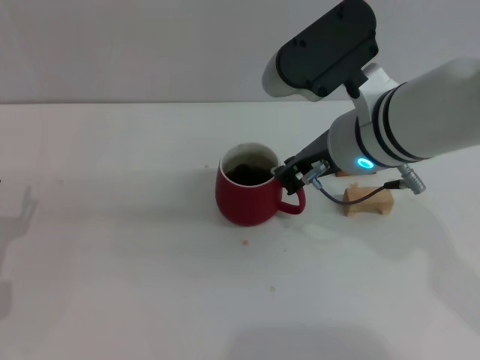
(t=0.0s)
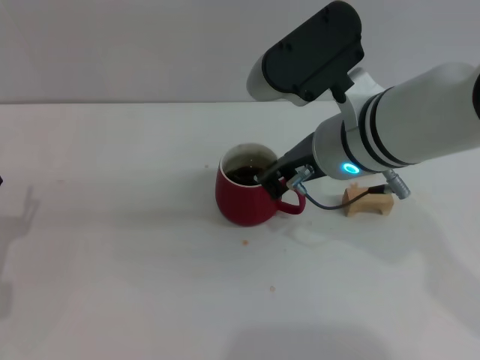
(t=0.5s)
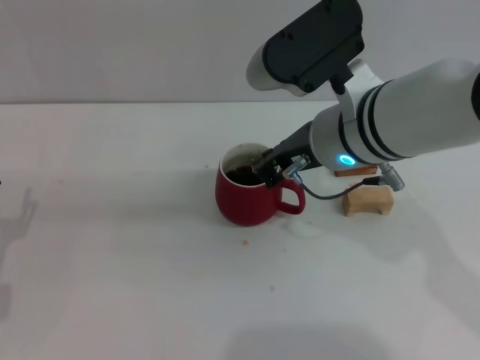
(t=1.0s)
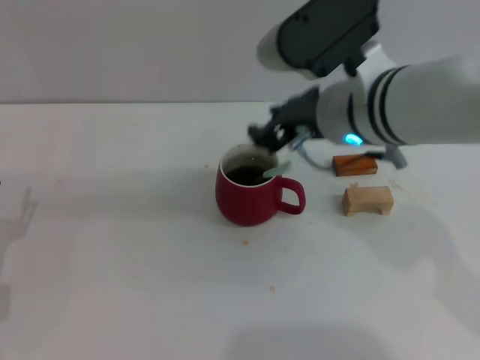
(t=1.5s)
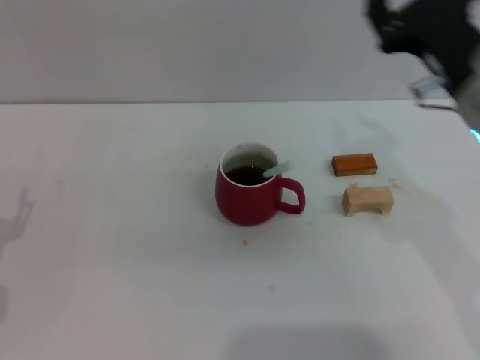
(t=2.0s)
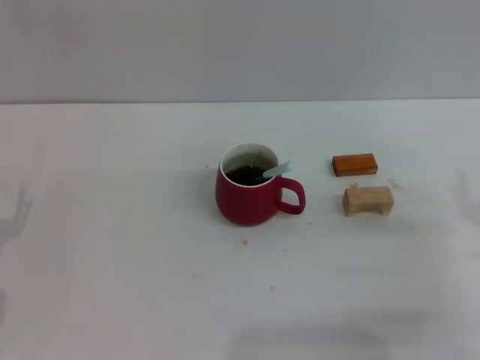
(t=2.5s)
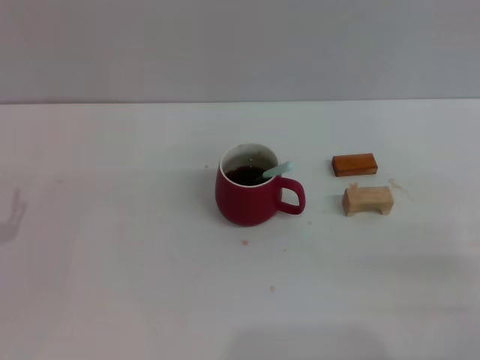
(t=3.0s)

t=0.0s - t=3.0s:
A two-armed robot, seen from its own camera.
Task of the whole recording: Move the red cup to the center, lift the blue spoon, stir it three times in the cup, and put the spoon into the cup.
t=0.0s - t=1.5s: The grippers move only a little.
t=1.5s - t=3.0s: The right gripper shifts approximately 30 cm to the right, backward and downward, and opens its fingers.

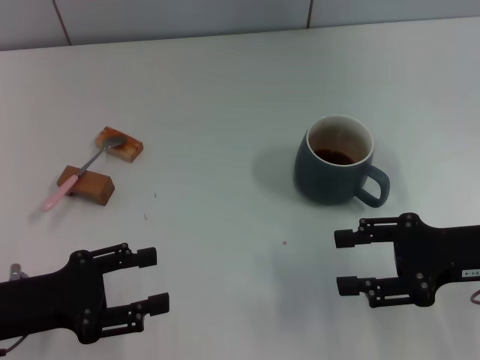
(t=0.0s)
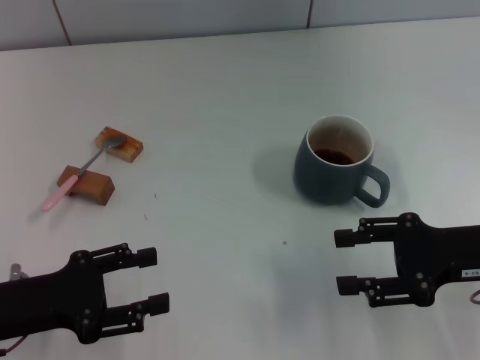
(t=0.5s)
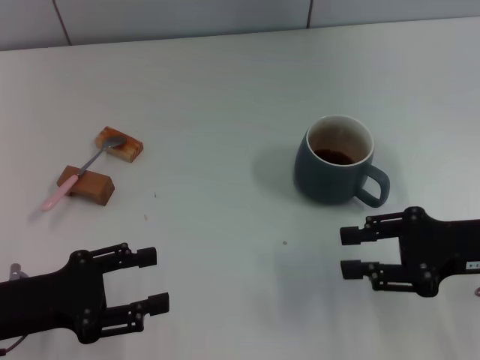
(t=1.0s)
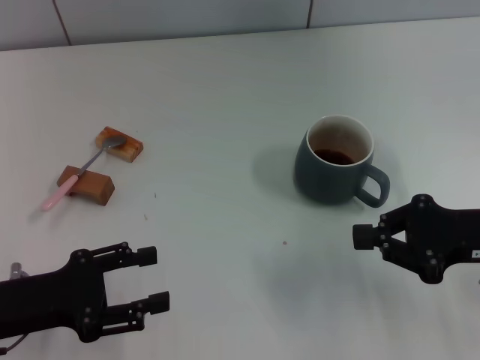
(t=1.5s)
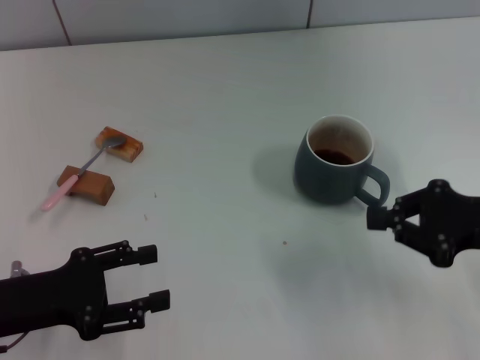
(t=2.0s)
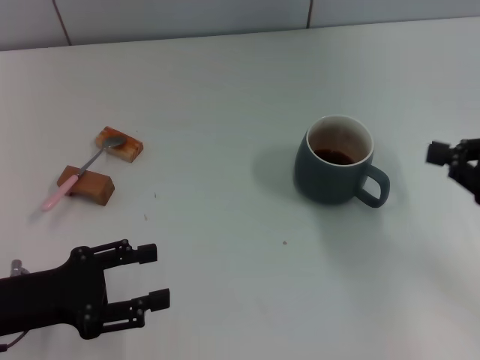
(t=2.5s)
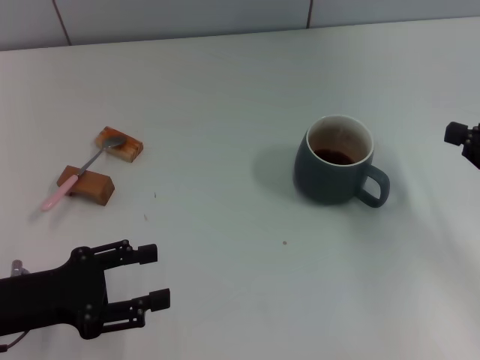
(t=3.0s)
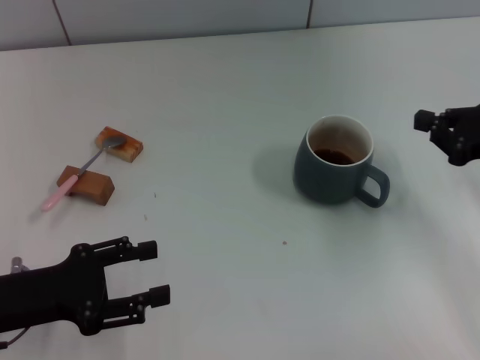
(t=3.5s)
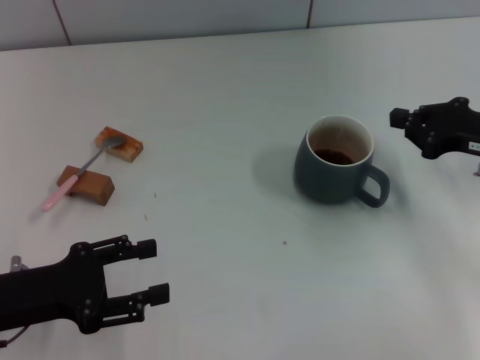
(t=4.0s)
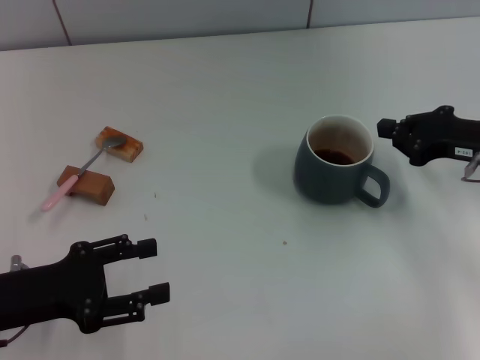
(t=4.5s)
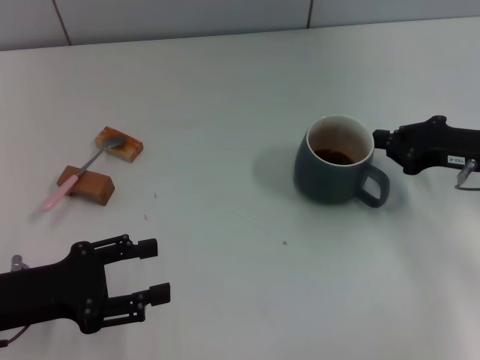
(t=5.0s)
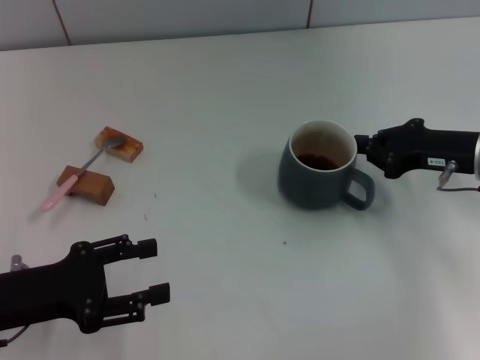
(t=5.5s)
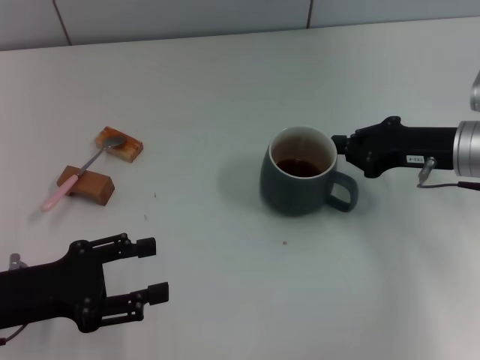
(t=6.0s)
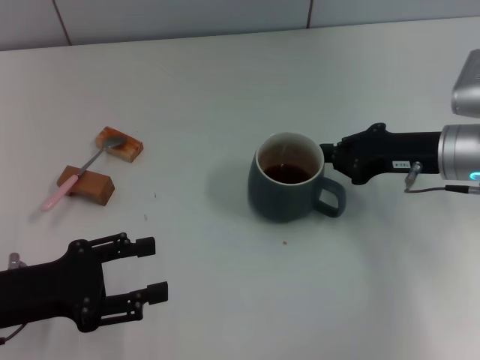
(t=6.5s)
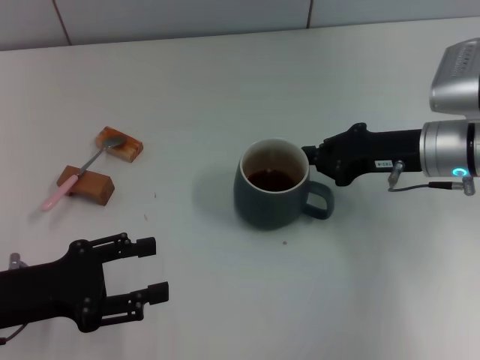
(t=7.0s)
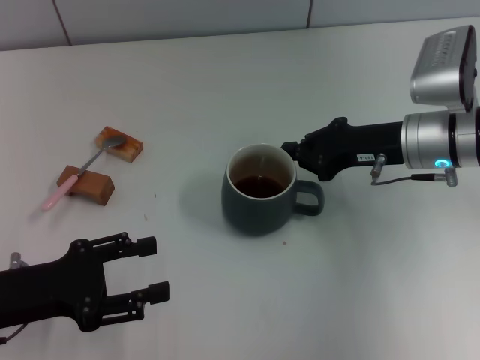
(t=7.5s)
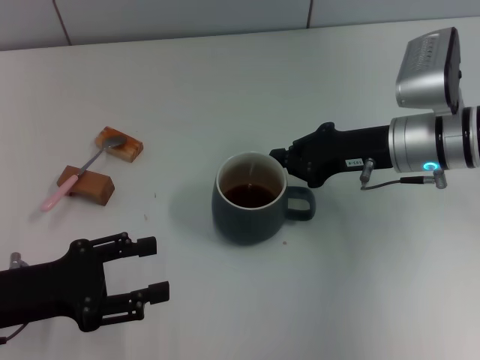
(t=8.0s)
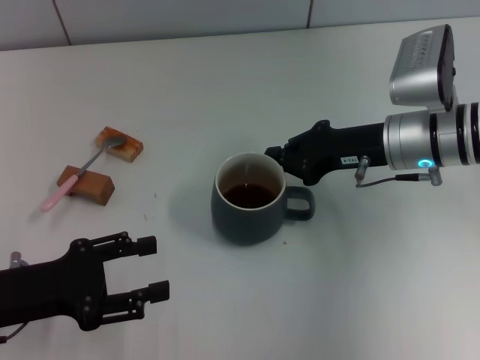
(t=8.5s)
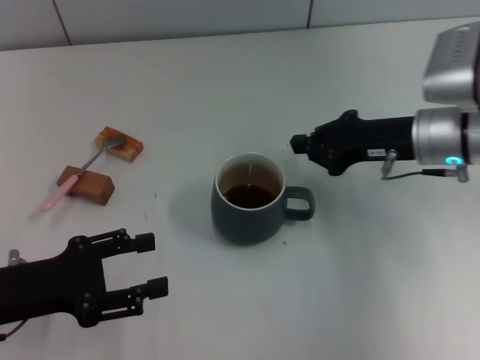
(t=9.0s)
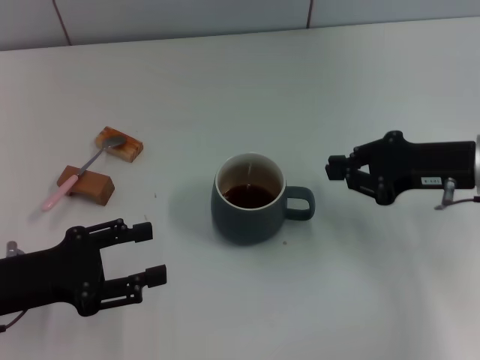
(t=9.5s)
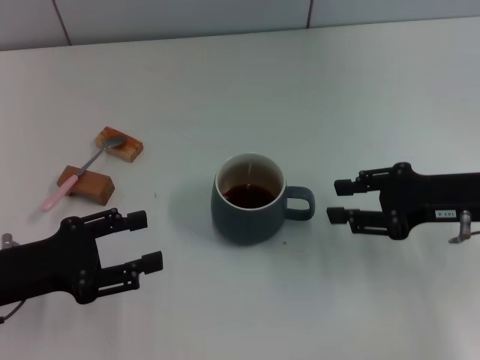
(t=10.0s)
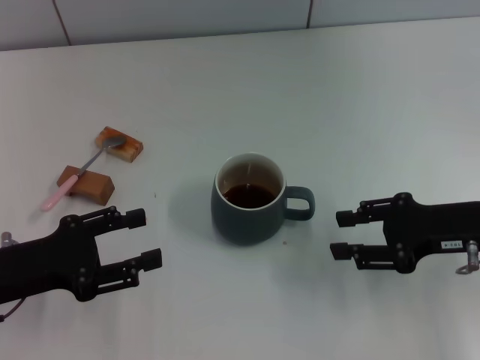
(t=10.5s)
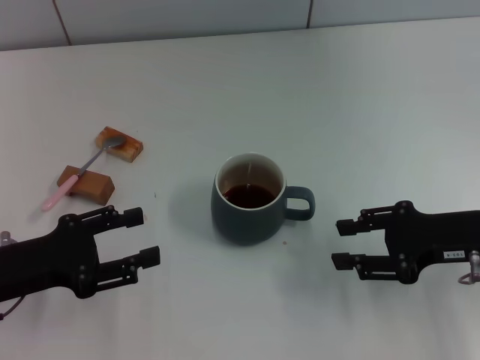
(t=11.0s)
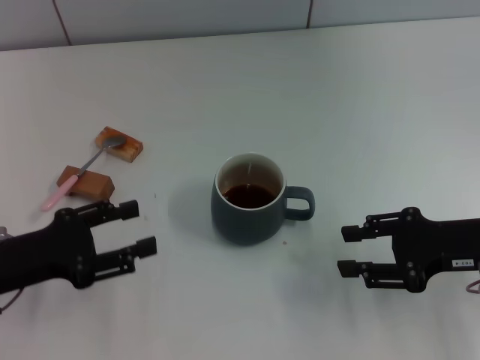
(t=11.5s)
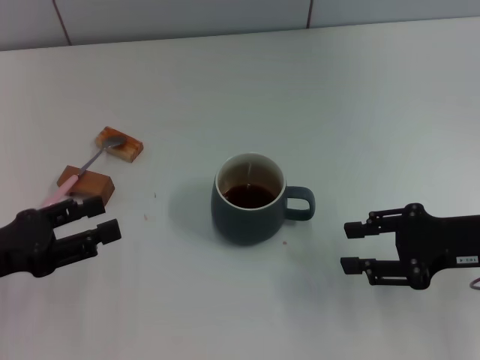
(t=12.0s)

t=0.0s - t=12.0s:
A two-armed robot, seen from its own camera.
Task of the whole recording: Move the grey cup to the center, lift the pink spoon, stir it three times in the cup, and put the spoon into the cup.
Step, t=0.0s - t=9.0s: Move the cup with coffee to the center of view with the right gripper.
t=0.0s - t=2.0s: The right gripper closes.
t=2.0s - t=4.0s: The right gripper shifts about 5 cm forward.
t=4.0s - t=6.0s: The right gripper moves to the left, roughly 5 cm.
t=6.0s - t=8.0s: The right gripper travels to the left by approximately 5 cm.
t=8.0s - t=10.0s: The right gripper heads to the right and backward, covering roughly 10 cm, and opens its fingers.
t=10.0s - t=12.0s: There are only small adjustments of the grippers.

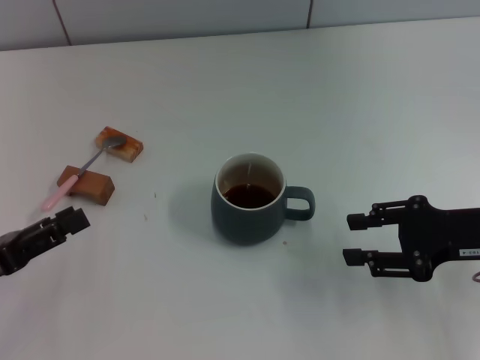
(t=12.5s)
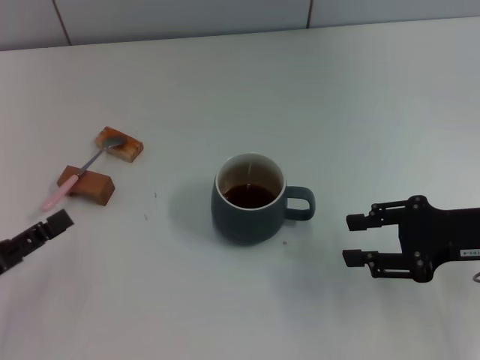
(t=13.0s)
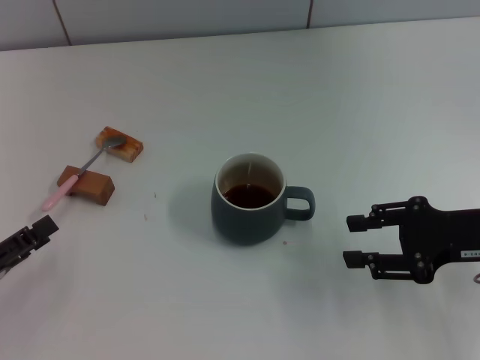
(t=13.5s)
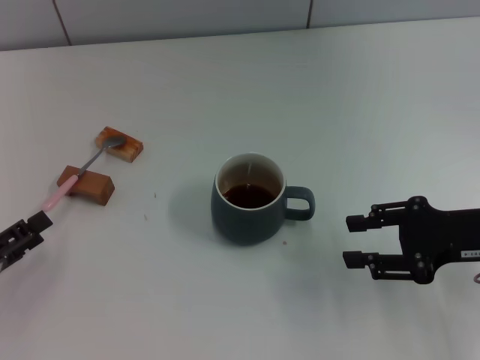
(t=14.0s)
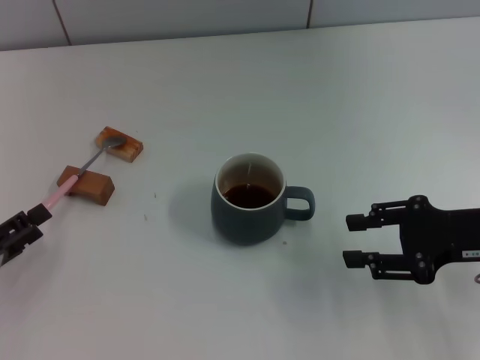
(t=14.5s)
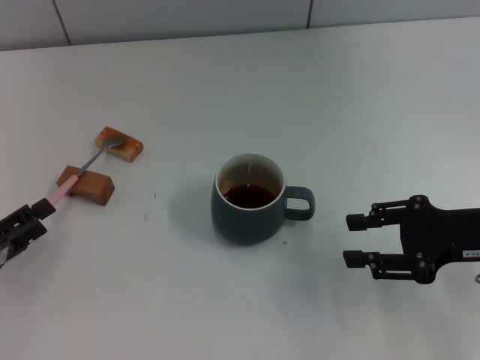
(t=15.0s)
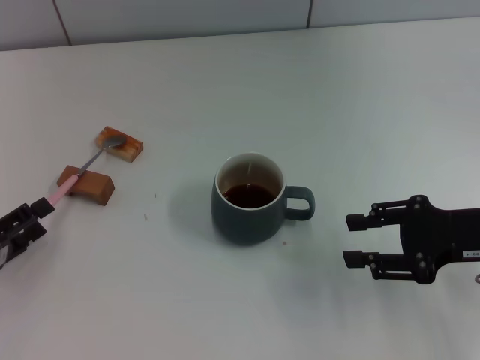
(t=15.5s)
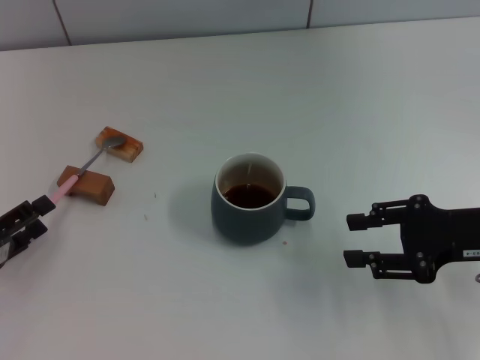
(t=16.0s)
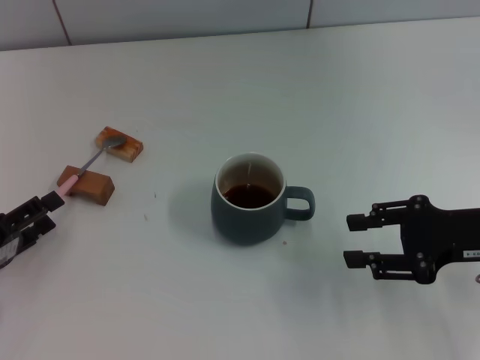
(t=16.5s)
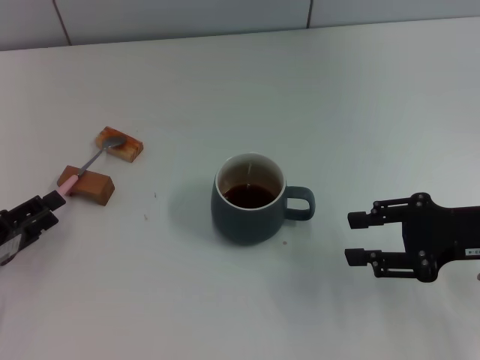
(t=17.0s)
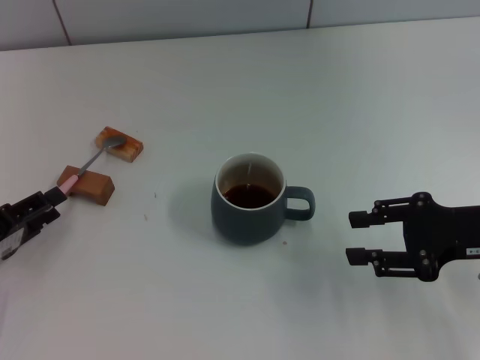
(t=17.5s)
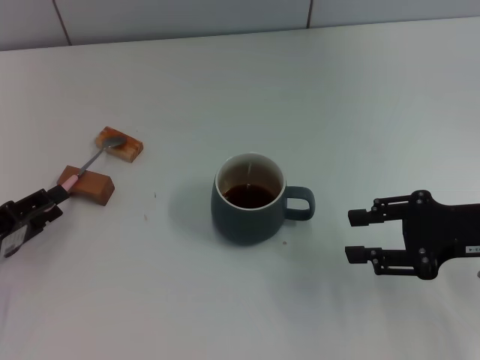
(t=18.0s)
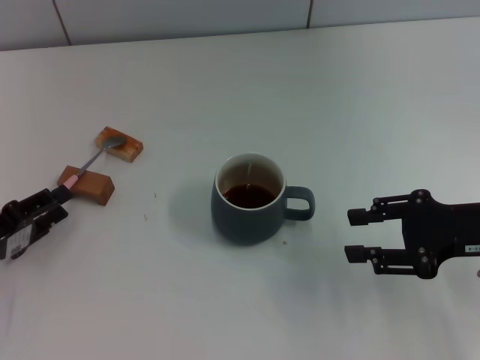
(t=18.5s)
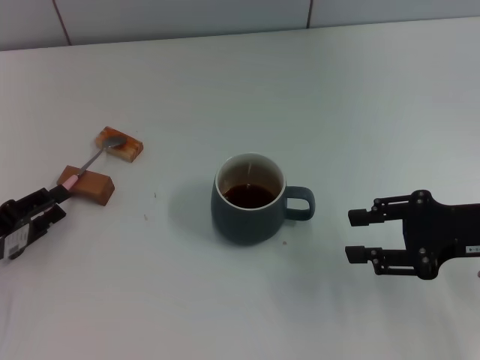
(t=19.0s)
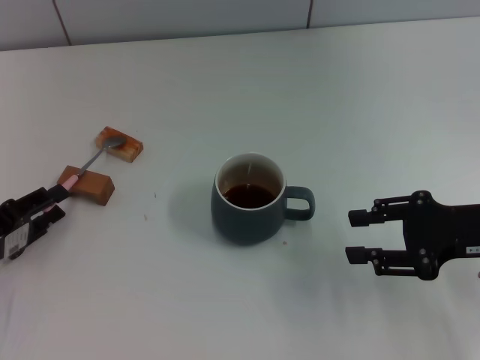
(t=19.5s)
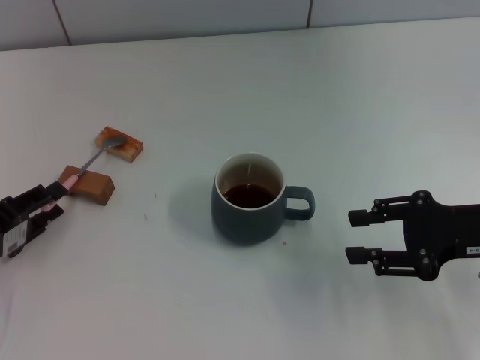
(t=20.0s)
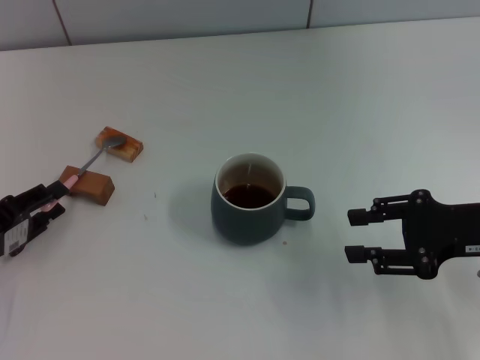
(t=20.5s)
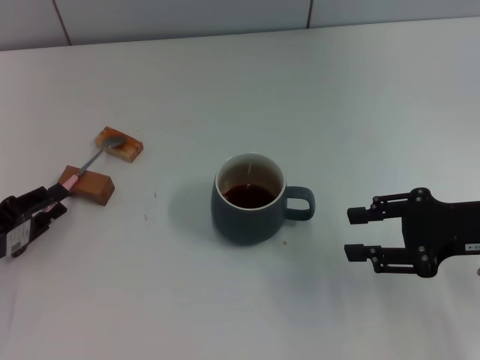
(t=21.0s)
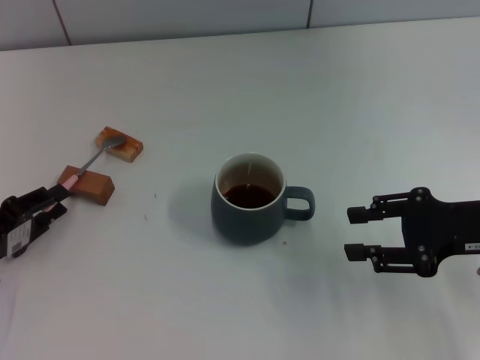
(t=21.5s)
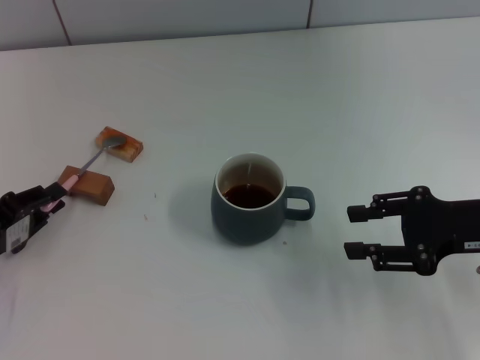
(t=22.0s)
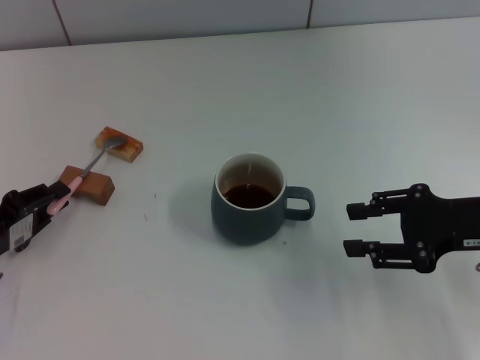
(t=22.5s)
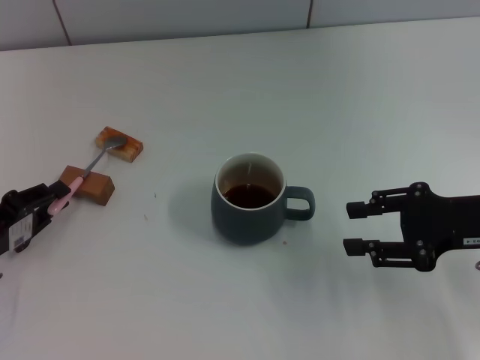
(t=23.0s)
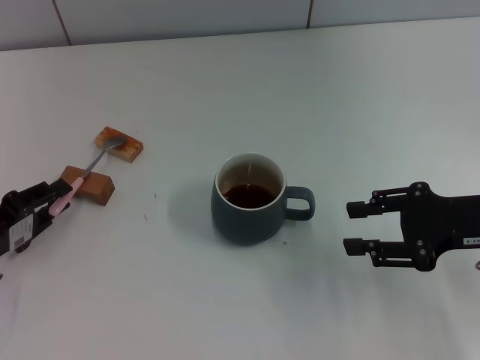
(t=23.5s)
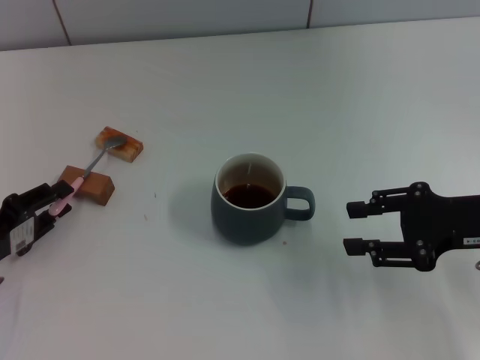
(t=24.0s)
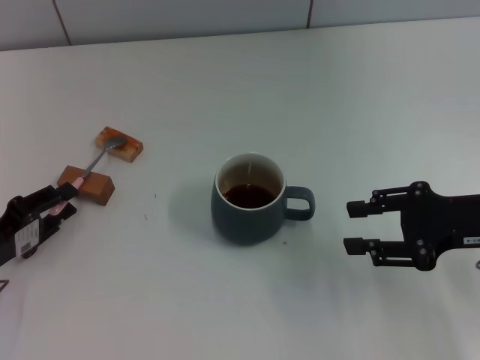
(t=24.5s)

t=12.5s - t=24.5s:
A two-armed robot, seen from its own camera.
Task of the whole recording: Move the grey cup to the center, lift the pink spoon, stir it three times in the cup, and put the spoon into the cup.
t=14.5s - t=16.5s: There are only small adjustments of the grippers.
t=16.5s - t=18.5s: The left gripper closes up.
t=18.5s - t=20.5s: The two grippers keep their place.
t=20.5s - t=22.5s: The left gripper closes its fingers.
t=22.5s - t=24.5s: Neither gripper changes place.
